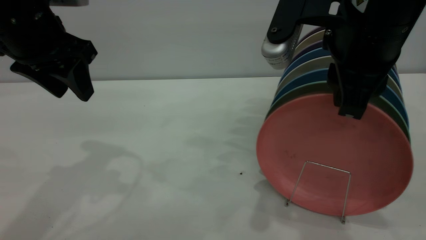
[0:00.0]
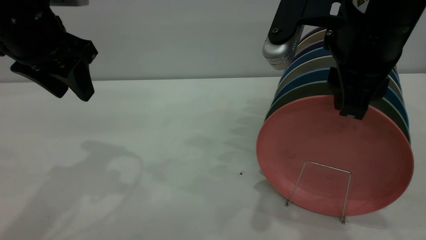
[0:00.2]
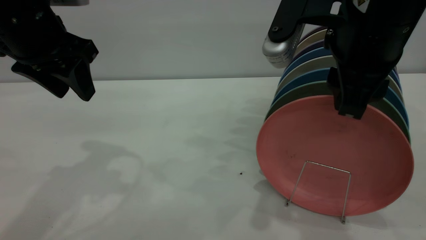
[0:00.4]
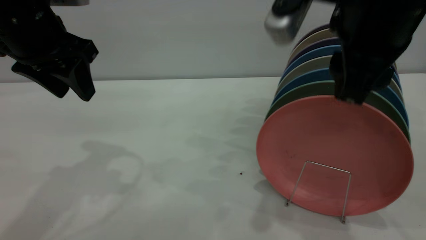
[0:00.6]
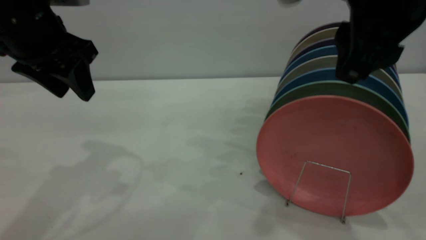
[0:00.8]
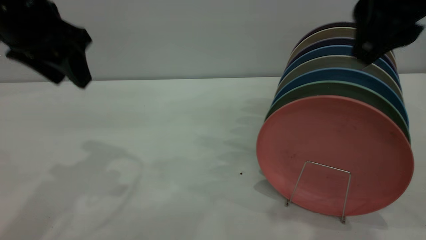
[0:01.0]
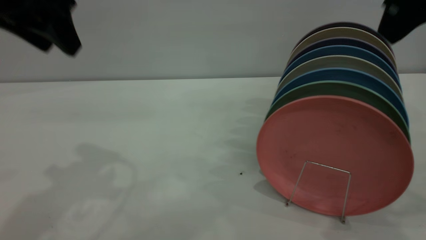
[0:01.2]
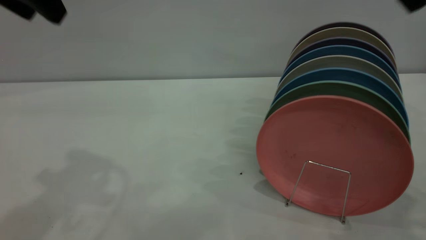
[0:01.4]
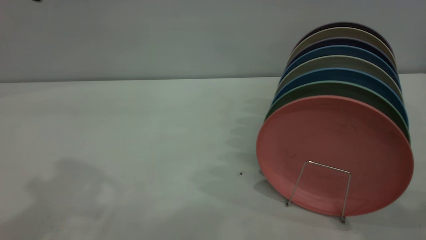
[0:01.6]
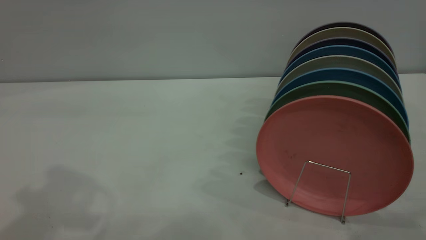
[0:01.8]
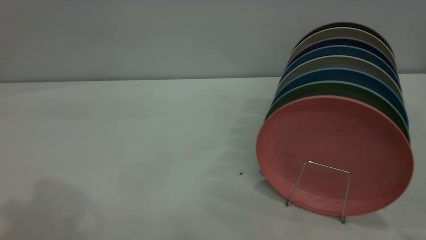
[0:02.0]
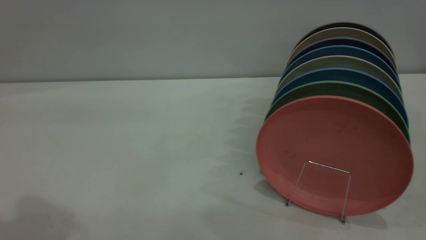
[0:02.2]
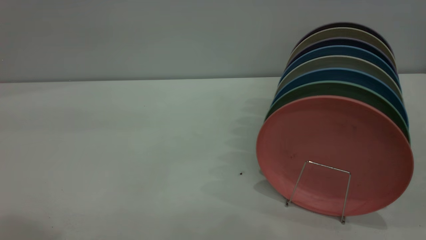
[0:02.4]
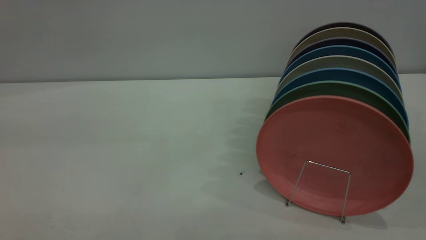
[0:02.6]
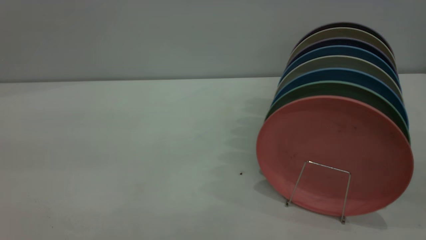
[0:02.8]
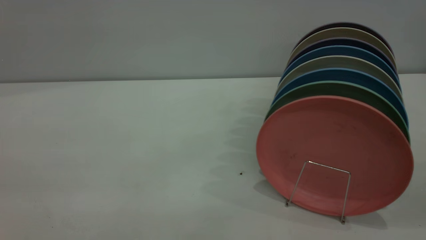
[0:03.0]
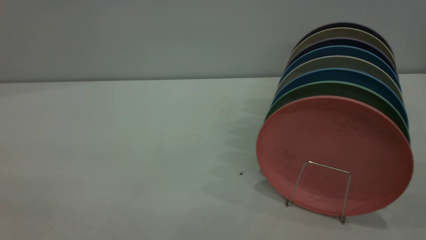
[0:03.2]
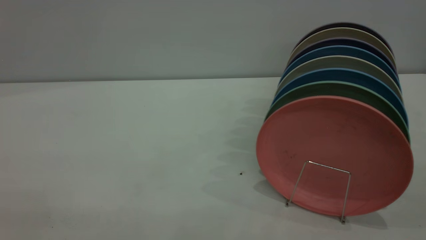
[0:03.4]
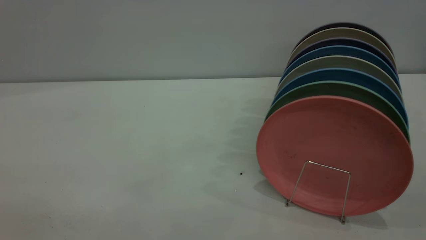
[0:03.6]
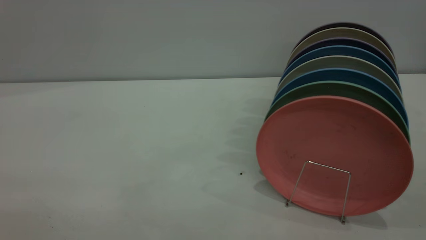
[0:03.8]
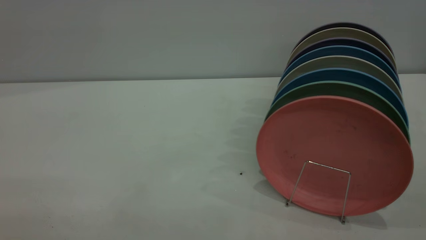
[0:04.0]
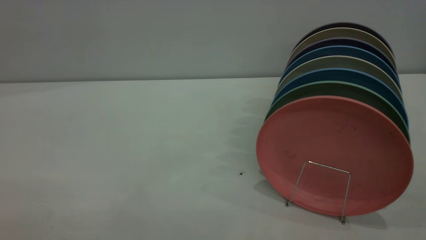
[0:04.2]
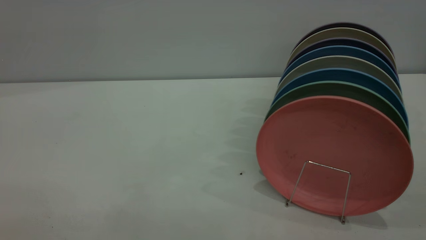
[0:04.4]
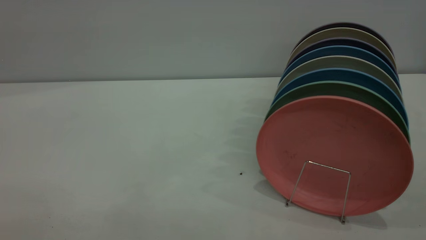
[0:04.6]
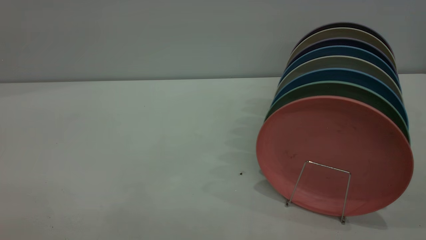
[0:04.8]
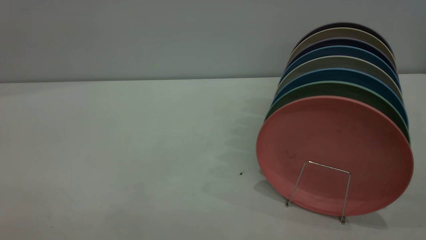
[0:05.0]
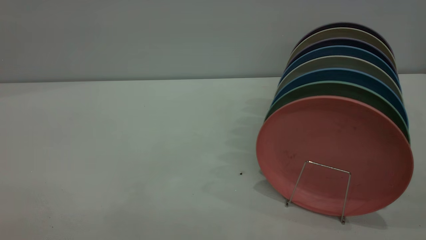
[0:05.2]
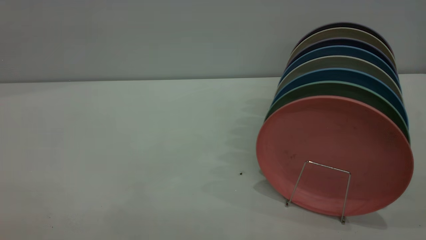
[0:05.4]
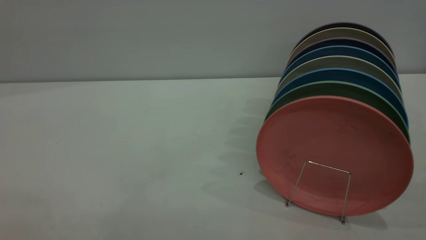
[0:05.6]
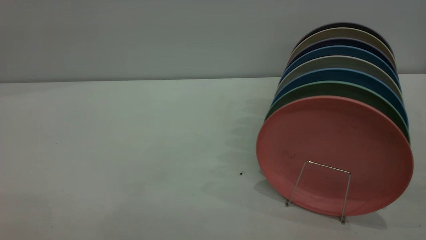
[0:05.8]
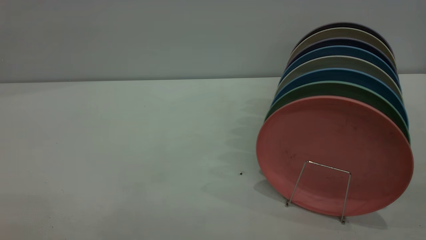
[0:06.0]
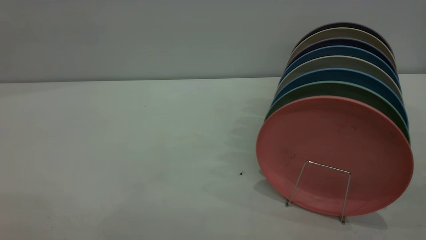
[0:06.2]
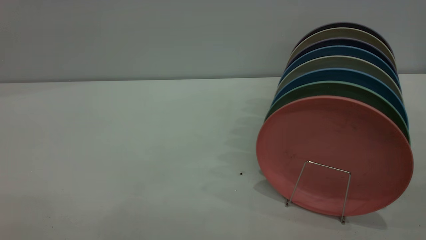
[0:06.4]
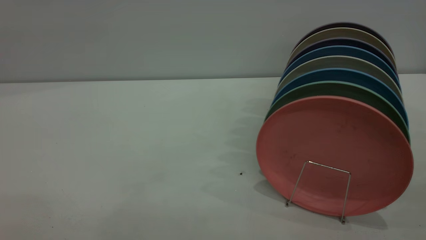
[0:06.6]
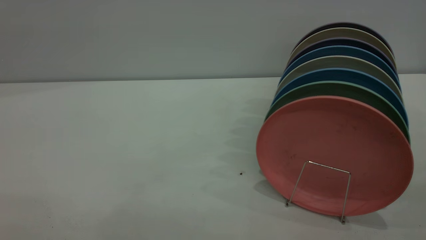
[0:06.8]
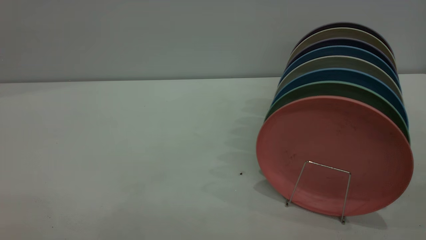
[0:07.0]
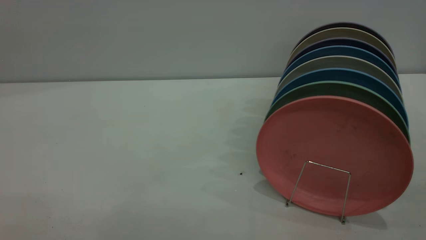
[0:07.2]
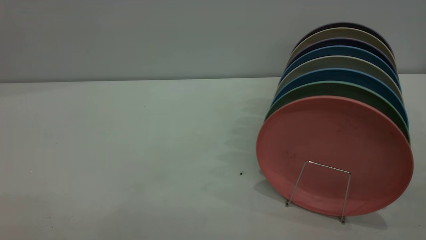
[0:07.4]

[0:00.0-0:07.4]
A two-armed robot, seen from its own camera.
Task of the whole recording: put the plate on the plate rack.
0:00.0 to 0:01.4: The right gripper is displaced upward and to the right by some 15 cm. The left gripper moves upward, roughly 10 cm.
0:01.4 to 0:03.0: The left gripper goes some 25 cm backward.
0:06.0 to 0:07.4: Neither gripper changes place.
